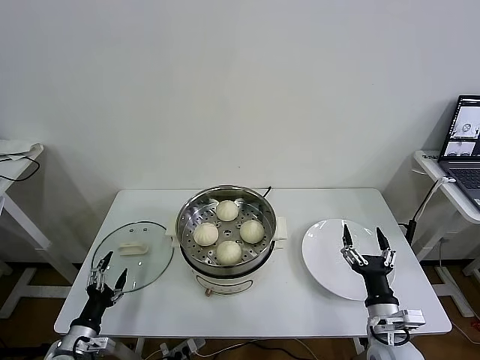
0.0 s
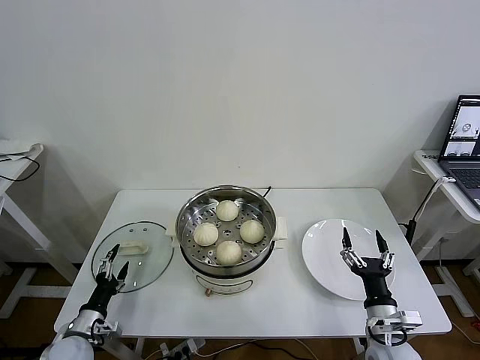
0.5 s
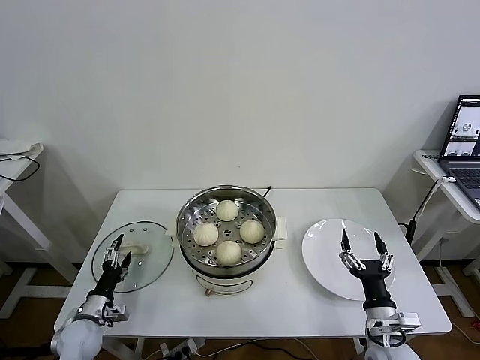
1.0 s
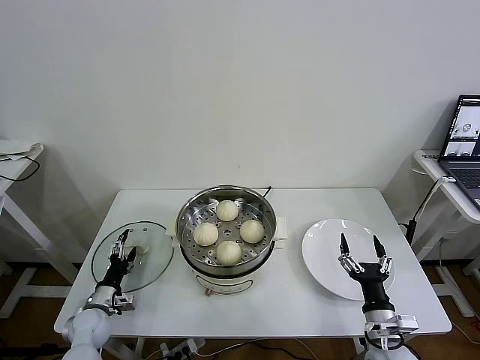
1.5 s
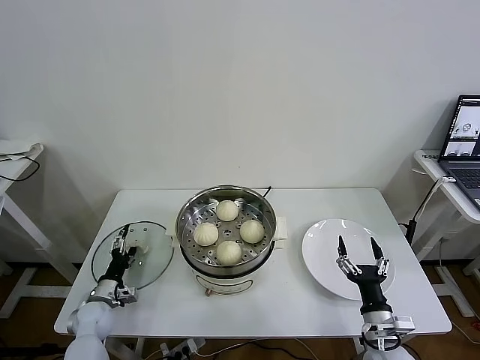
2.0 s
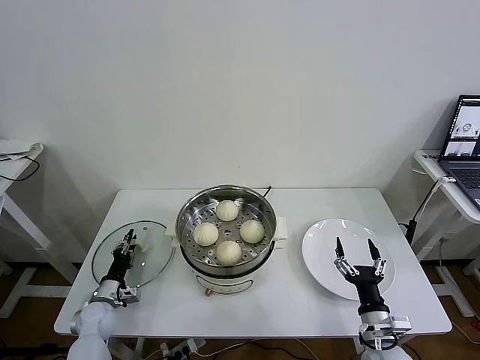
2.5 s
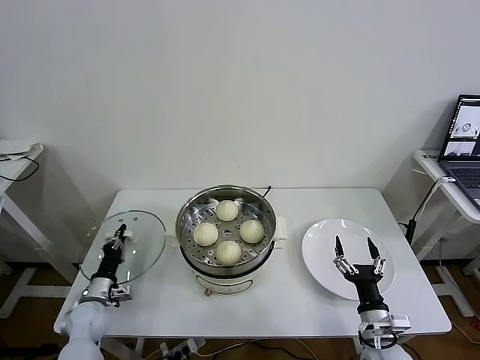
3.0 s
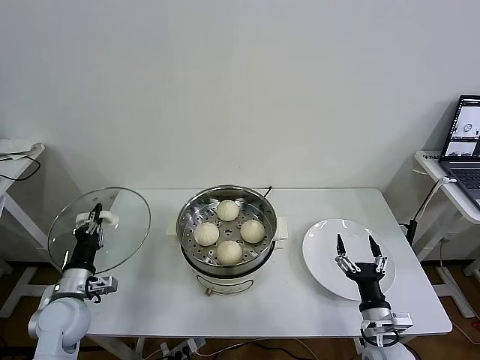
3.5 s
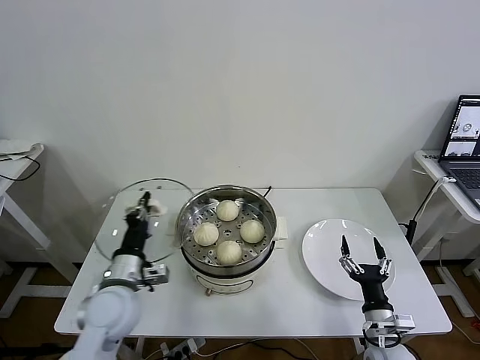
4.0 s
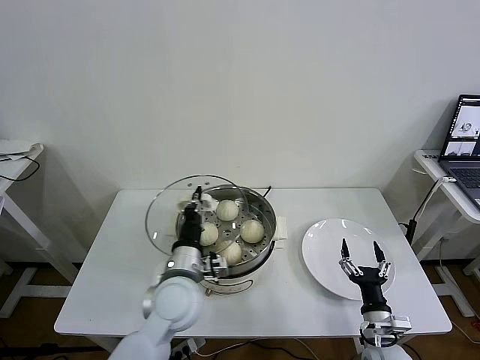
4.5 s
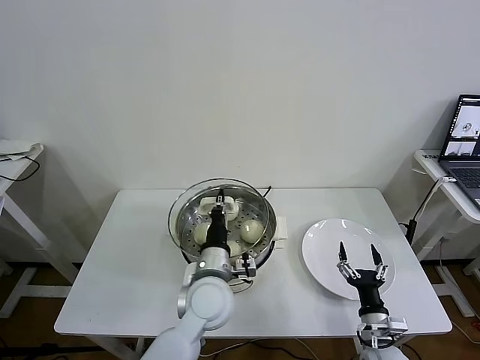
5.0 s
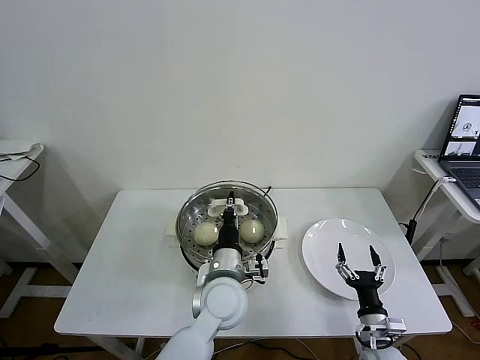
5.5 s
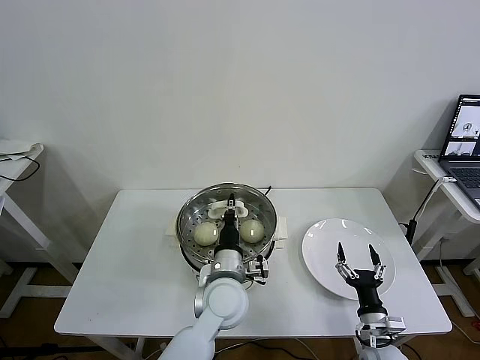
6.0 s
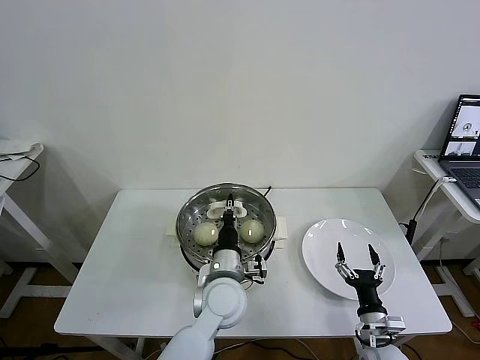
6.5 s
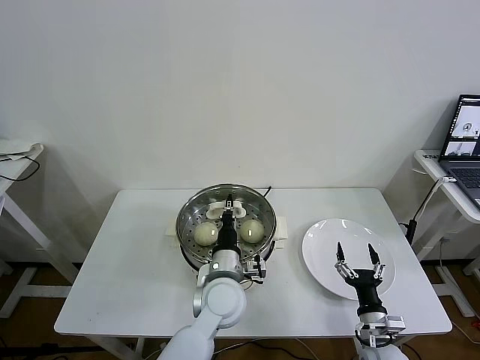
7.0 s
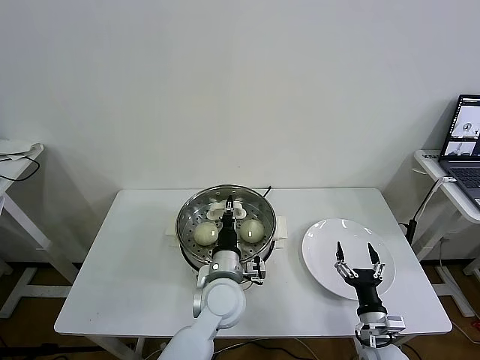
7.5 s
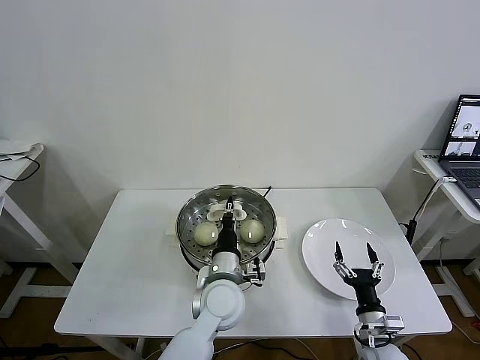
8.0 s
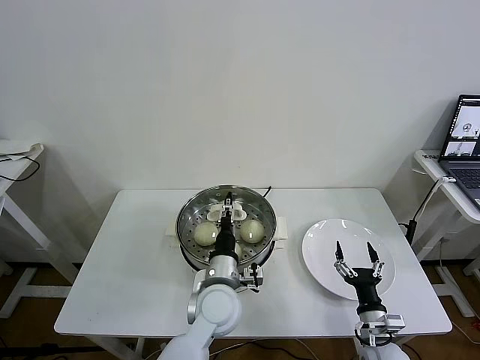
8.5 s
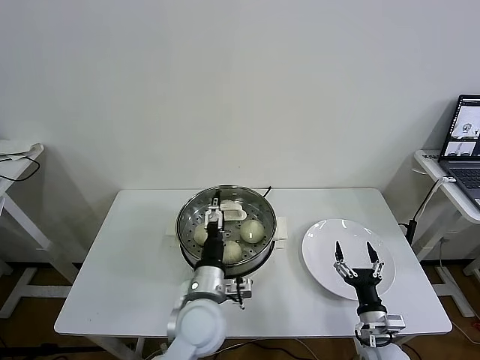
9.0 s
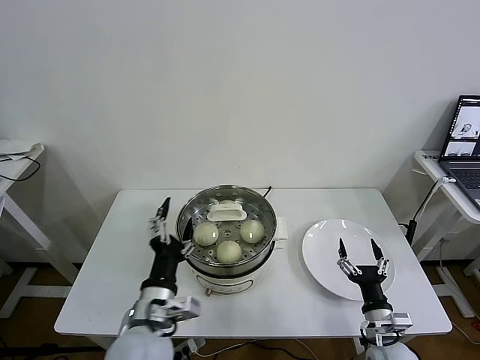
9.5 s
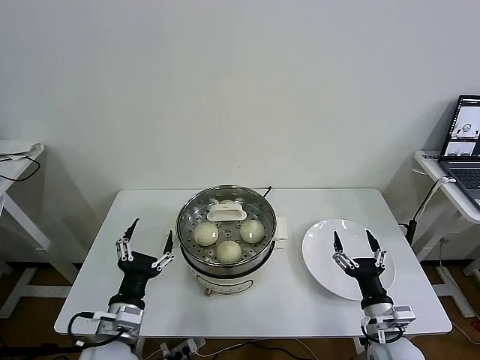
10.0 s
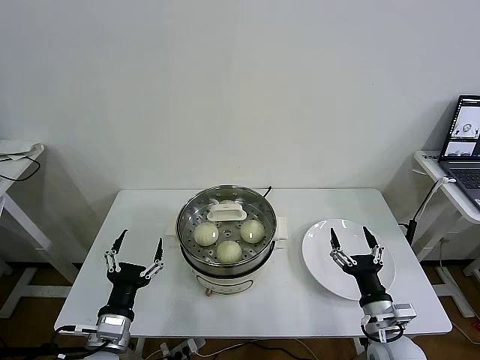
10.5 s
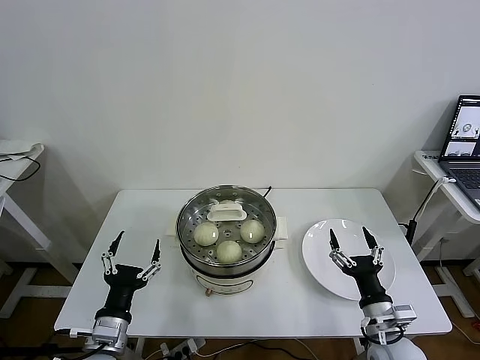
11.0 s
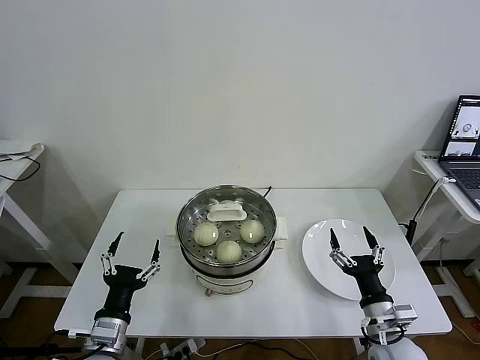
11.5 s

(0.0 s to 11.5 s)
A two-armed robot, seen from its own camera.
Task of the whole recording: take steamed baozi put them in steamer then cover it.
Step, 0.0 s - 3.0 s: Grasp the pot lid with left gripper.
Step, 3.5 s - 9.0 s: Place the pot lid on the steamer with left gripper.
0.0 s - 2.0 s: The left gripper travels forward by some 15 cm.
2.0 s - 4.0 s: The left gripper moves upward and to the right, approximately 25 cm, and closes up.
4.0 s - 6.0 s: The left gripper goes roughly 20 cm to the right.
6.0 s - 7.5 s: Neither gripper changes place.
7.5 s - 9.5 s: The left gripper travels to the left, backward and upward by approximately 15 cm, and opens its fingers.
9.5 s - 11.5 s: The left gripper travels to the left and downward by approximately 15 cm. Meanwhile the right gripper heads upward, covering roughly 5 cm.
